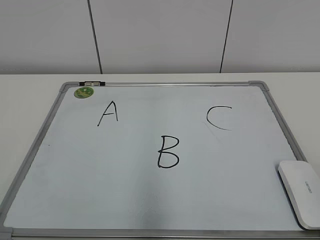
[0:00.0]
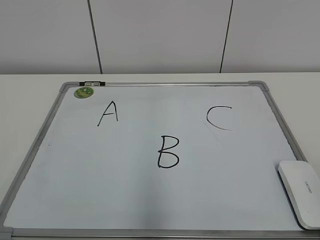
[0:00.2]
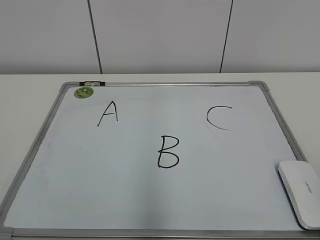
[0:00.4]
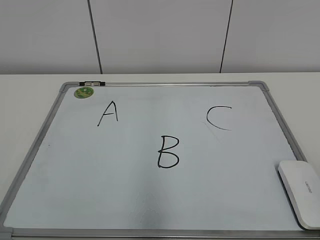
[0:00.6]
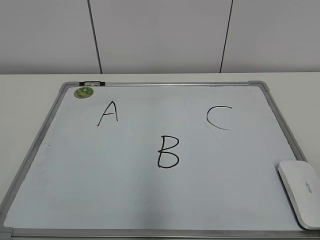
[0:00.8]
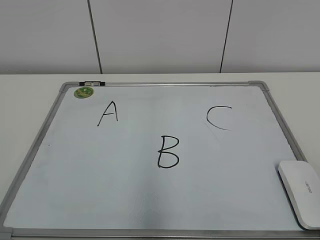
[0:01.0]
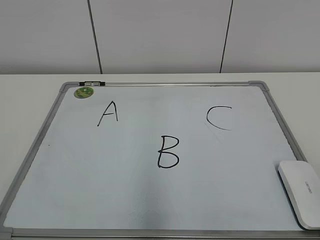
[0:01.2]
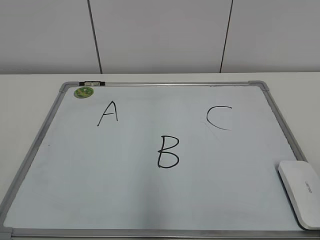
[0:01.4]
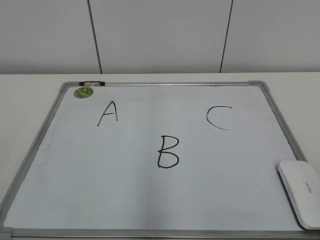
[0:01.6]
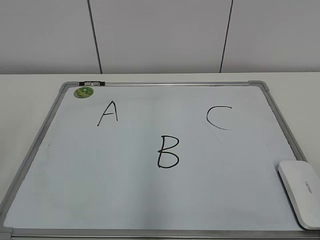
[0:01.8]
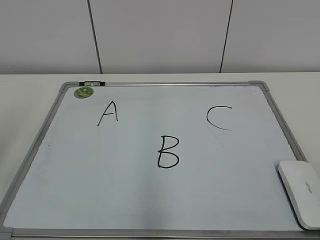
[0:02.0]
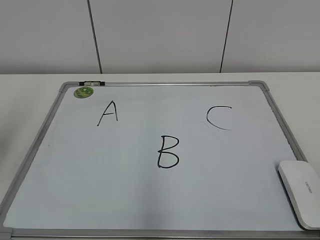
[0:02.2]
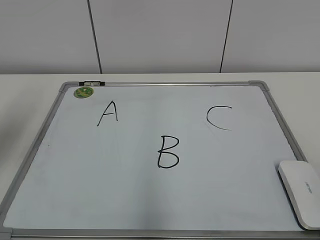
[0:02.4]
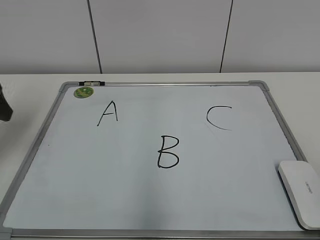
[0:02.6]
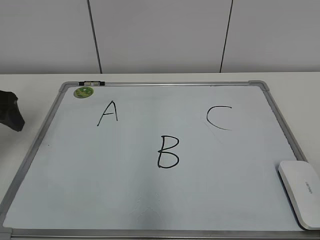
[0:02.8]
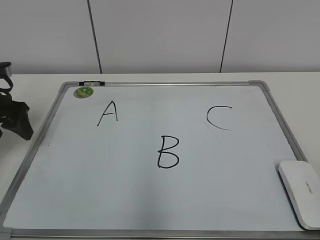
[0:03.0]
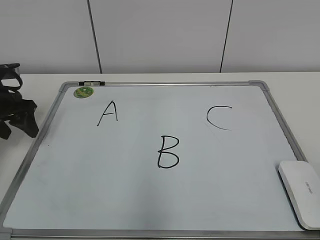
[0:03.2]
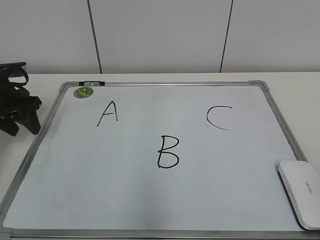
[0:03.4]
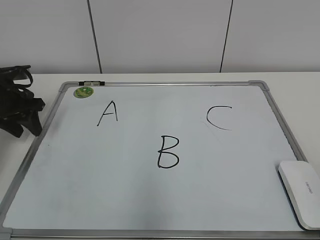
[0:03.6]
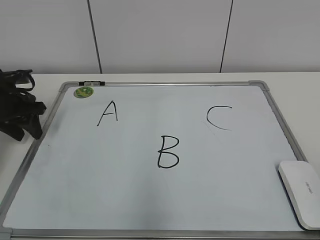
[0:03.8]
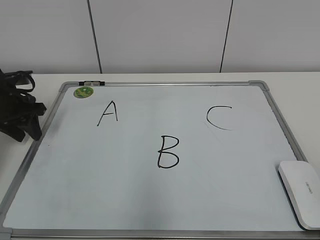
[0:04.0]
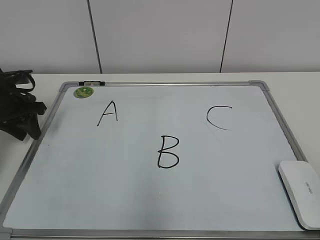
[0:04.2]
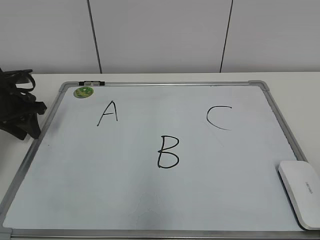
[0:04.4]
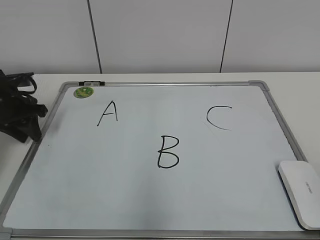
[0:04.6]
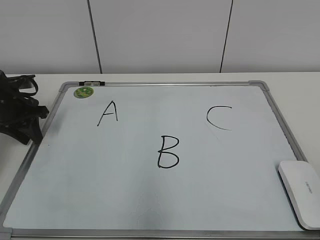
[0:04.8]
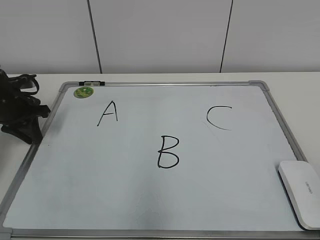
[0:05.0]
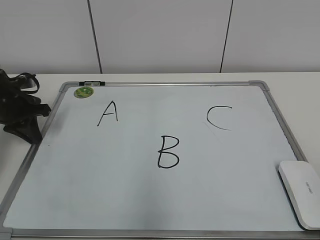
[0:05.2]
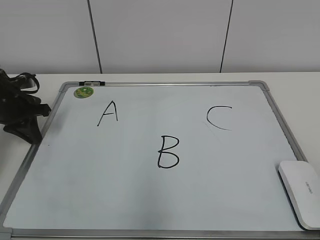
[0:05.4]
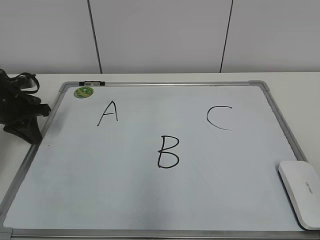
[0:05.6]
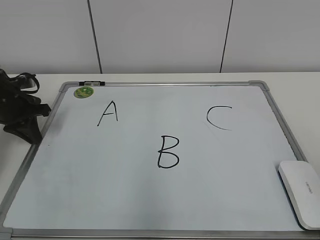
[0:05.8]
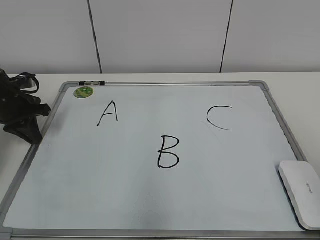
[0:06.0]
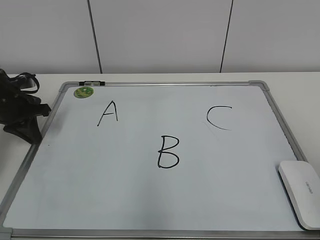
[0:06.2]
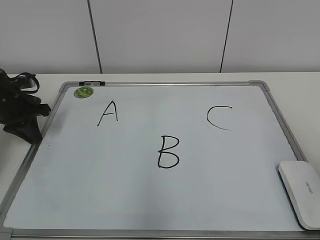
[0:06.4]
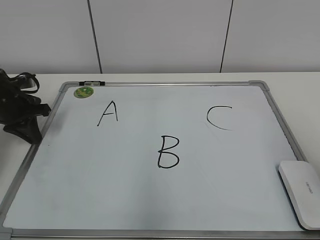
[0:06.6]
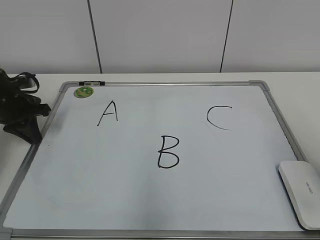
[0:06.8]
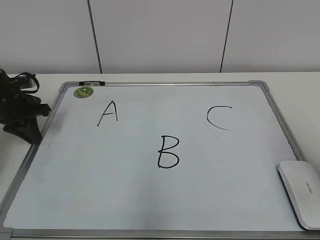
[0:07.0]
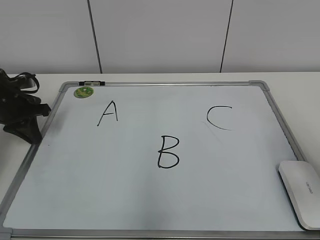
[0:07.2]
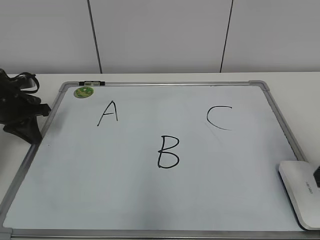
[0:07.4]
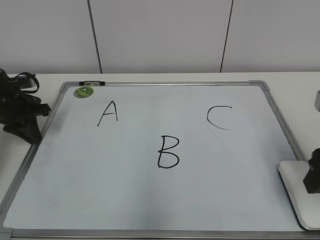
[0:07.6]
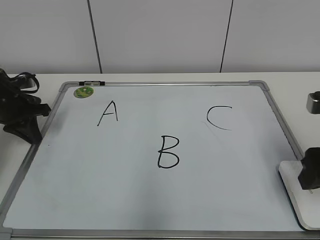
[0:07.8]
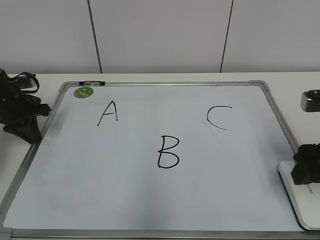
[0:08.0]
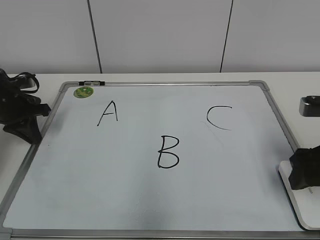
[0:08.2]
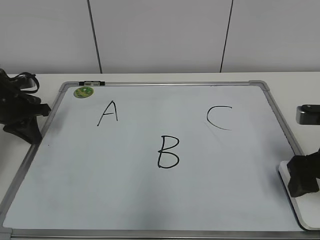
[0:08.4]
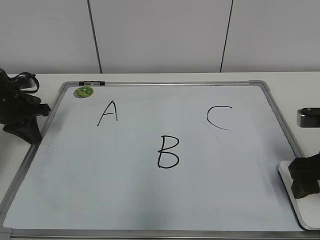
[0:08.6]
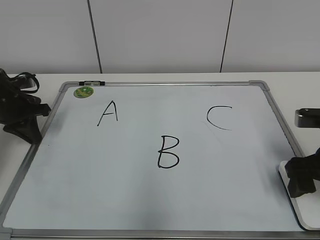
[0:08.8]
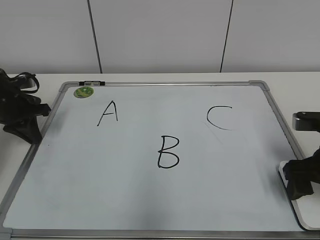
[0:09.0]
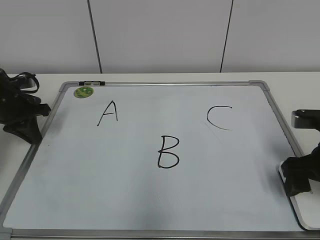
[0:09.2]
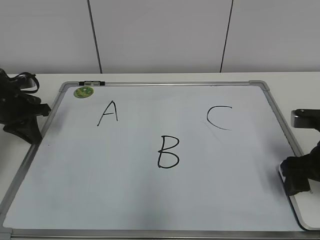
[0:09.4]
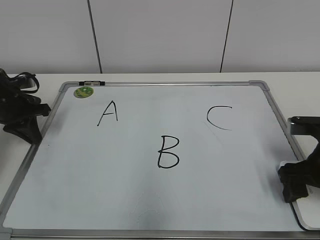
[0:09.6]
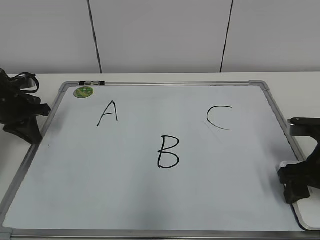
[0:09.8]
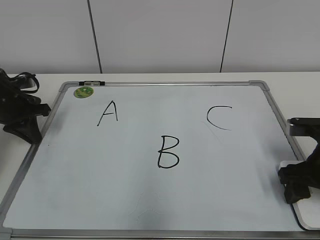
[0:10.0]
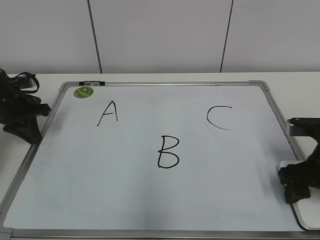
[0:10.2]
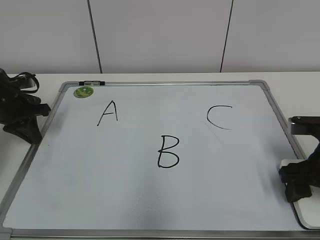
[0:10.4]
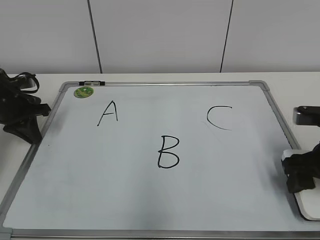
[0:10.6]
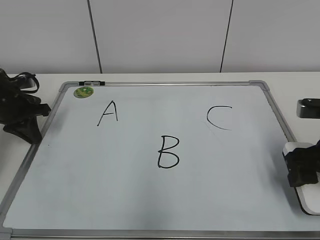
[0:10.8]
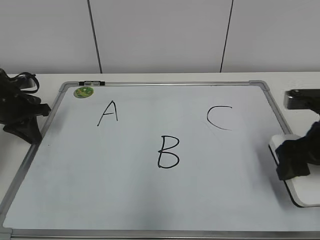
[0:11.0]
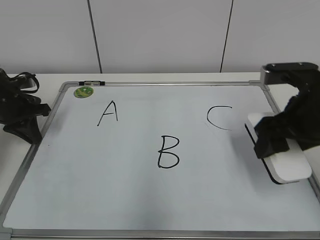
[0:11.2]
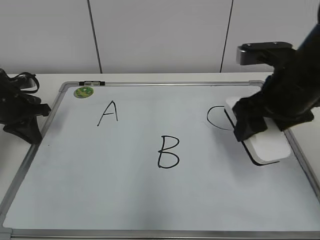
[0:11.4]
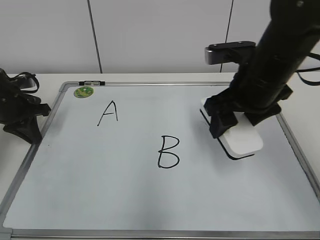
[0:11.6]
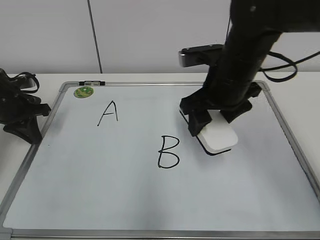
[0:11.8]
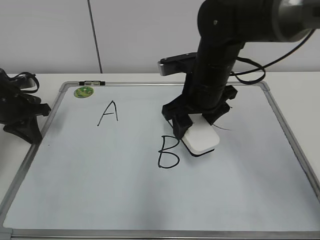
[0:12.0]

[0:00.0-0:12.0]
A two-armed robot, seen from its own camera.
Task of the whole recording: pick up the eraser on the blackboard and erase the letter "B".
Step, 0:00.0 to 0:05.0: Hold the drawing board steady with your left hand.
Step, 0:05.2 to 0:10.2: Grab the eraser with your right hand.
0:01.6 to 0:03.0: The left gripper heads forward, covering some 30 cm.
0:03.0 to 0:04.4: The left gripper goes about 5 cm forward, and closes up.
0:04.4 to 0:06.0: The left gripper closes up.
0:06.0 to 0:07.6: The right gripper travels forward and downward by approximately 20 cm.
0:07.6 to 0:09.0: The right gripper travels downward by some 5 cm, and opens its fingers.
0:09.0 to 0:10.4: The right gripper closes its fingers.
0:10.4 to 0:12.0: The right gripper goes some 20 cm to the left and forward.

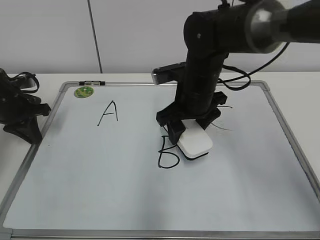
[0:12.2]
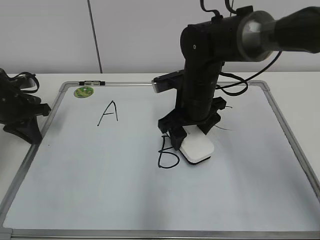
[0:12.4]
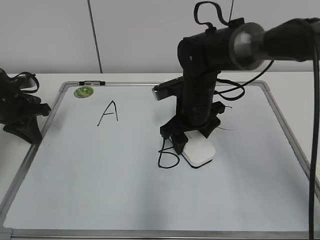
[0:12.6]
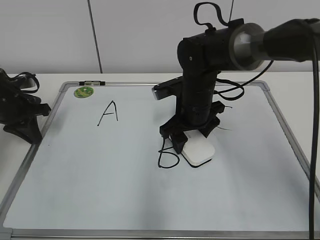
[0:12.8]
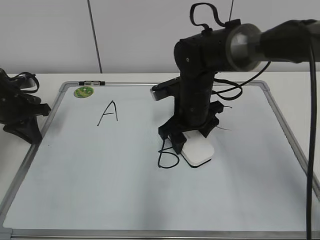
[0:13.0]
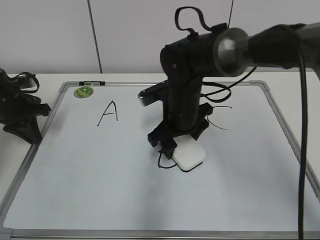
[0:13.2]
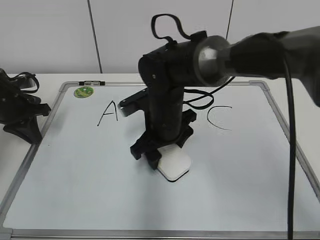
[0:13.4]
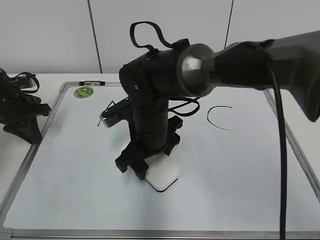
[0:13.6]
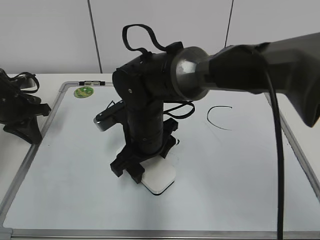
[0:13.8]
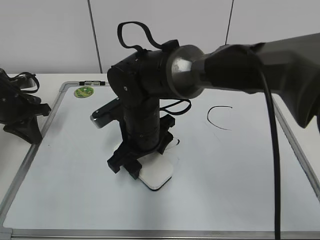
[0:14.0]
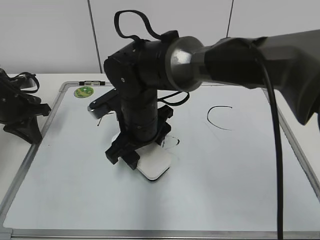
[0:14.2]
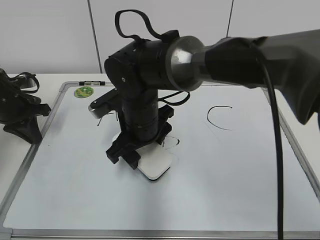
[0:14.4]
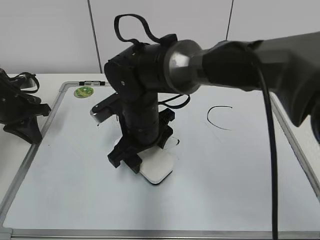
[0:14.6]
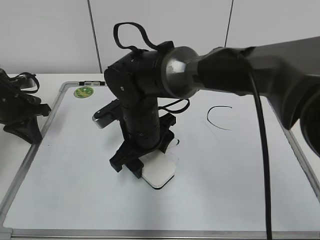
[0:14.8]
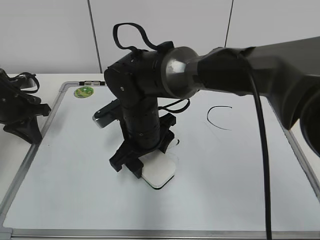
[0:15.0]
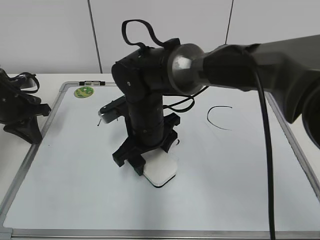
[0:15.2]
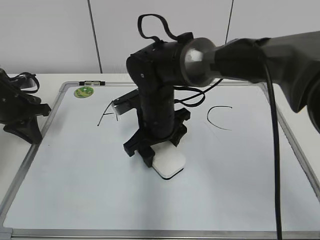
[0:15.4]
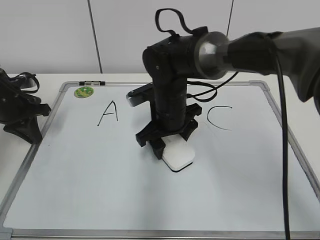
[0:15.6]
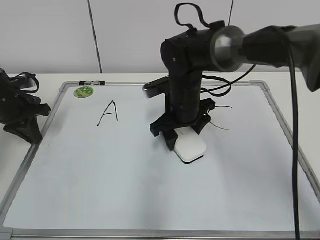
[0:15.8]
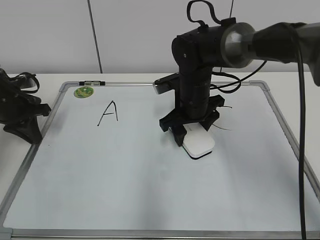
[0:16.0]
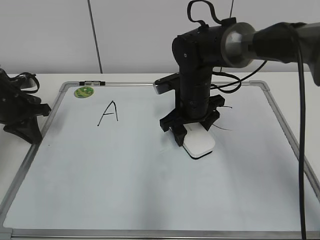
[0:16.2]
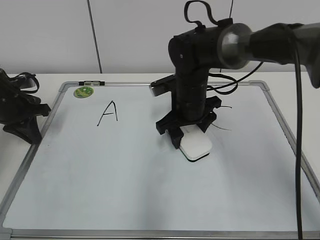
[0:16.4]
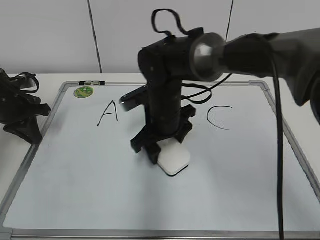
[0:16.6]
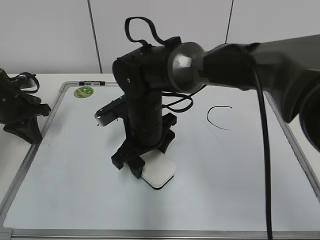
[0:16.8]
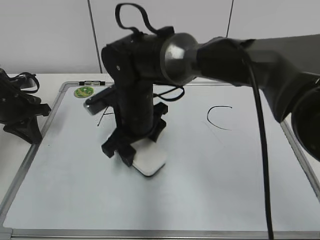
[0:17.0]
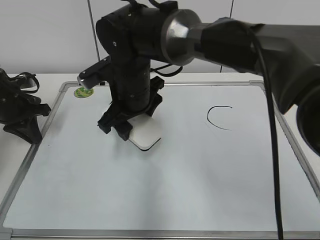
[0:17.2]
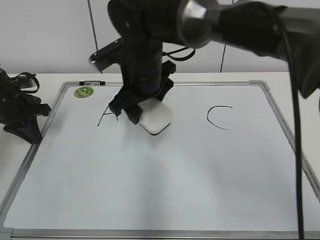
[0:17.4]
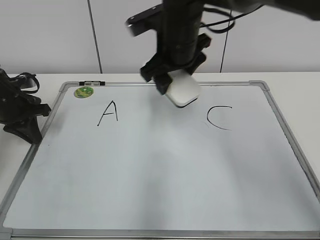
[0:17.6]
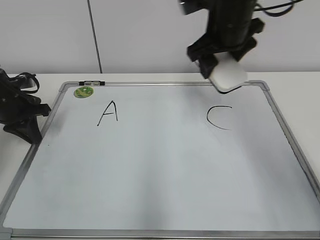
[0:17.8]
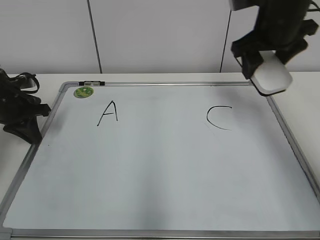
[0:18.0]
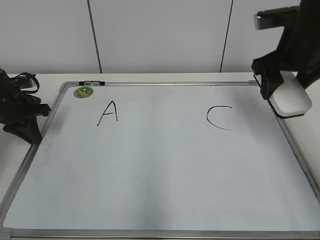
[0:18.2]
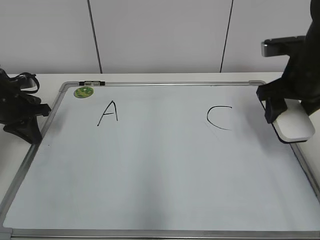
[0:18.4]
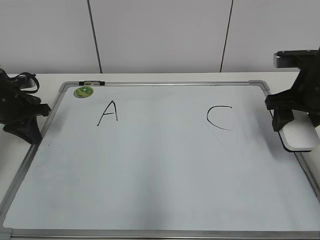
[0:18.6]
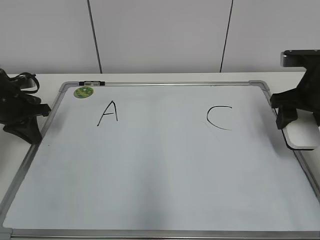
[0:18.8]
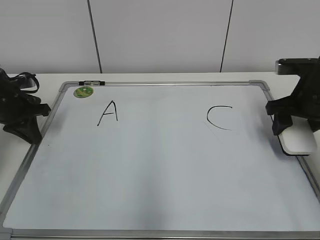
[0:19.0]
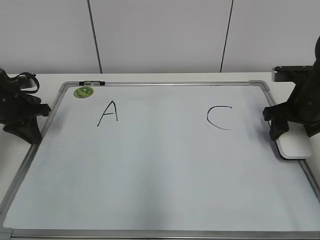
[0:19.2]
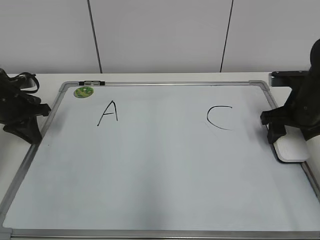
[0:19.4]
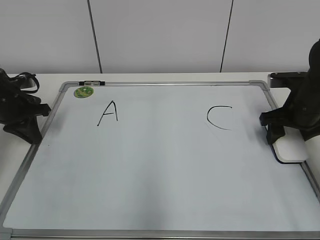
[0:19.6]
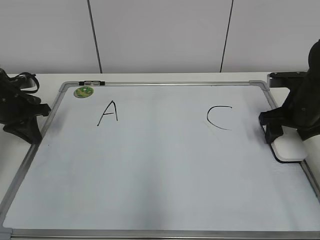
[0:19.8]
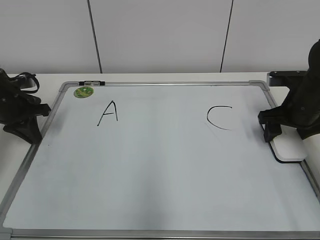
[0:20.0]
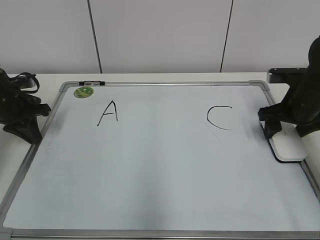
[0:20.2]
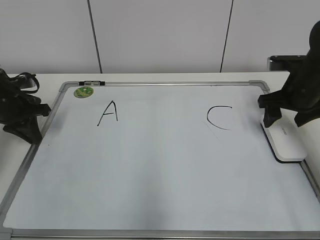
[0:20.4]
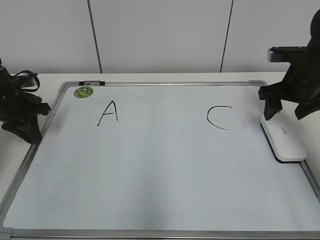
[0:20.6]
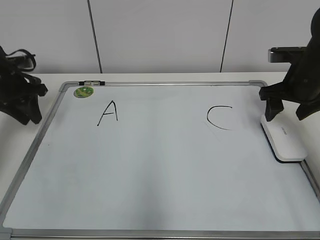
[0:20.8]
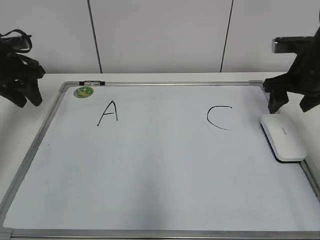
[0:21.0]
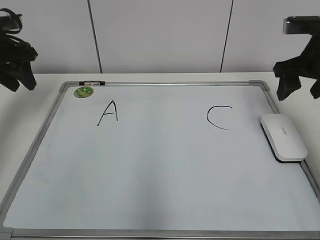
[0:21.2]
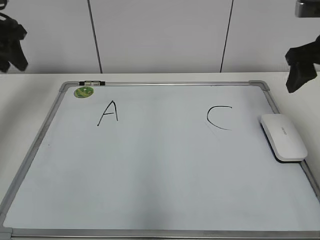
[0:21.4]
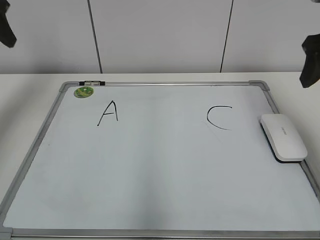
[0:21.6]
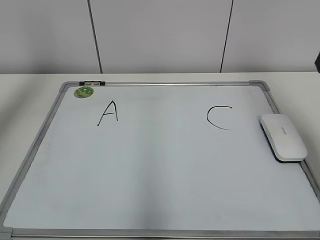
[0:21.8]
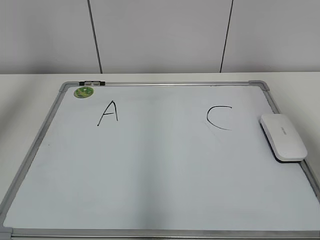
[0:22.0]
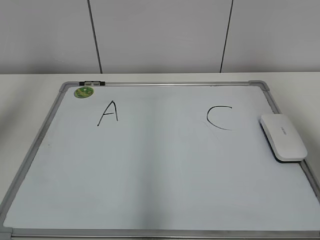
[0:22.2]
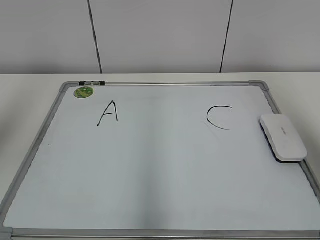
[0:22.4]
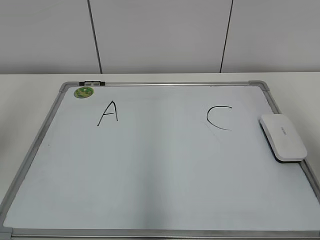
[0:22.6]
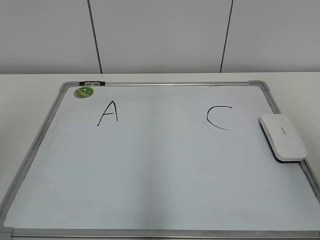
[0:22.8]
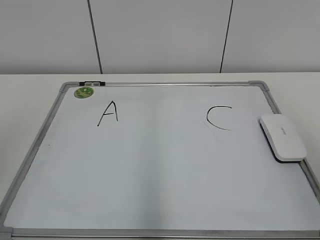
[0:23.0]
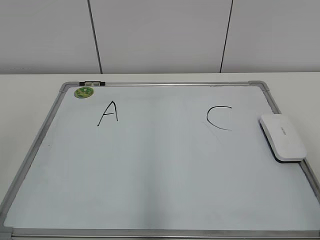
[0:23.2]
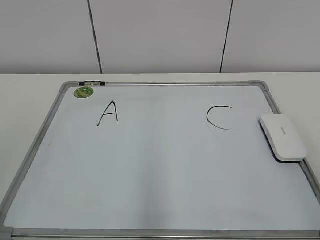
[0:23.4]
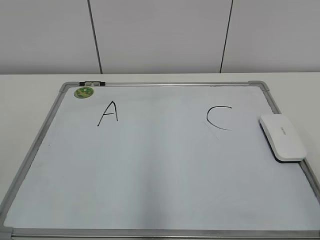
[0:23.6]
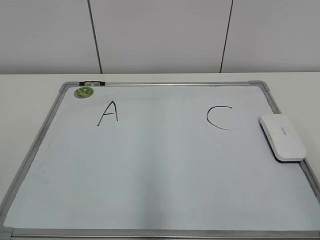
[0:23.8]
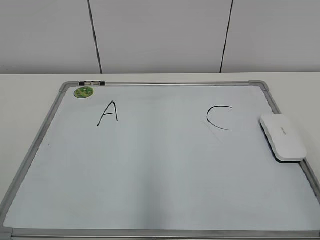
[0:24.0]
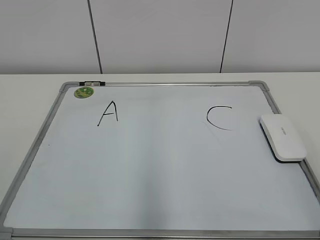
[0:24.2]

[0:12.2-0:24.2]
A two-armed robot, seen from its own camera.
Task of the whole recording: pick up the eraser on the blackboard and erase the letter "B".
Step, 0:12.2 to 0:16.6: Erase the letter B with your right hand.
Step, 0:16.8 to 0:20.2: Put down the eraser with your right hand.
0:12.2 to 0:13.8: The right gripper heads to the left and backward, covering about 10 cm.
0:13.8 to 0:15.2: The grippers stay close to where they were, moving slightly.
0:16.6 to 0:18.2: The right gripper heads to the right and upward, covering some 25 cm.
0:18.2 to 0:19.8: The right gripper is displaced downward by some 15 cm.
0:19.8 to 0:21.2: Both grippers travel together upward, roughly 10 cm. The left gripper opens its fingers.
0:21.2 to 0:22.6: The grippers both shift backward and upward by roughly 30 cm.
0:22.6 to 0:24.2: The left gripper travels backward and downward by about 20 cm. The right gripper moves downward and backward, approximately 20 cm.
